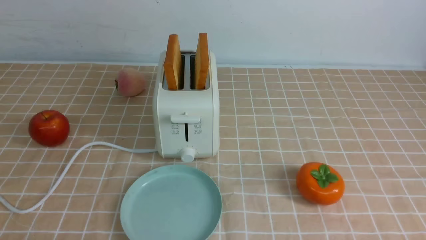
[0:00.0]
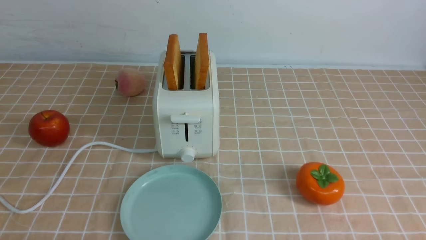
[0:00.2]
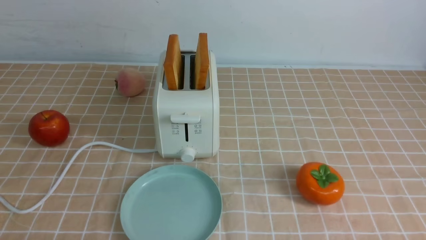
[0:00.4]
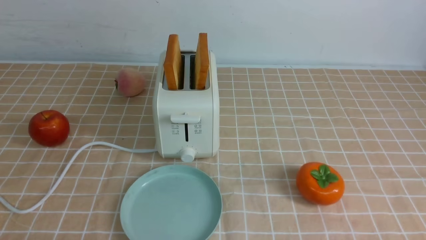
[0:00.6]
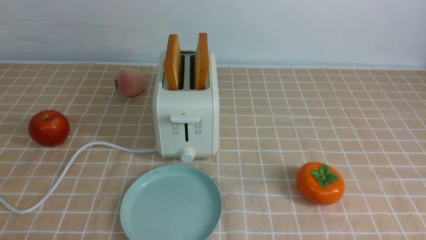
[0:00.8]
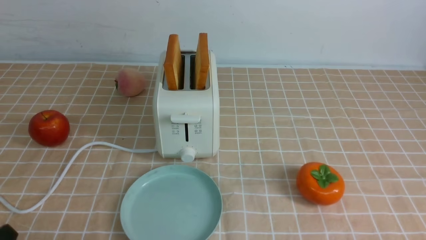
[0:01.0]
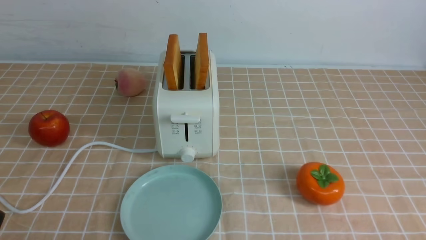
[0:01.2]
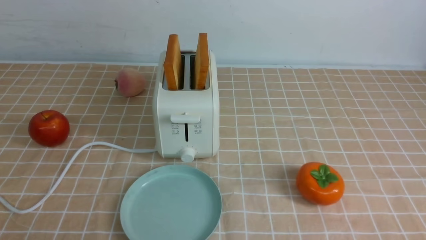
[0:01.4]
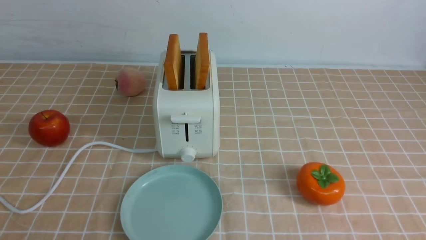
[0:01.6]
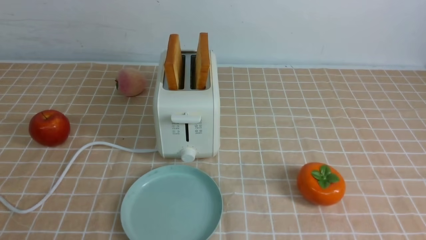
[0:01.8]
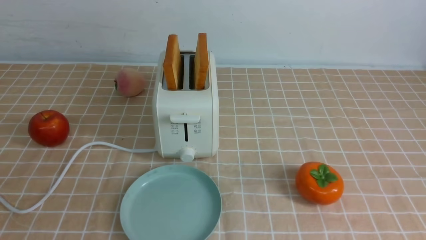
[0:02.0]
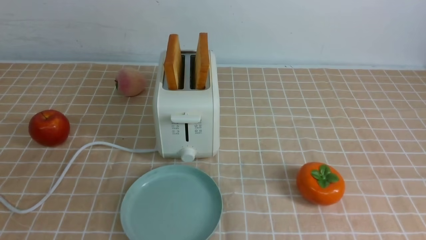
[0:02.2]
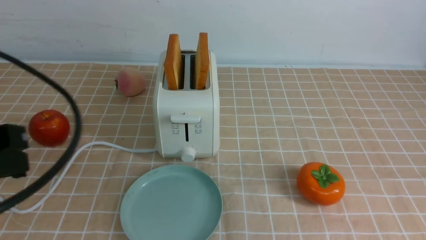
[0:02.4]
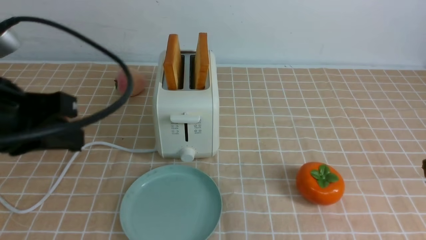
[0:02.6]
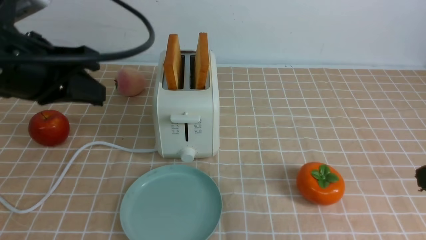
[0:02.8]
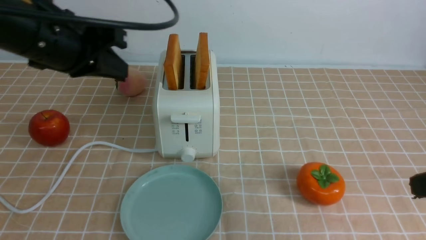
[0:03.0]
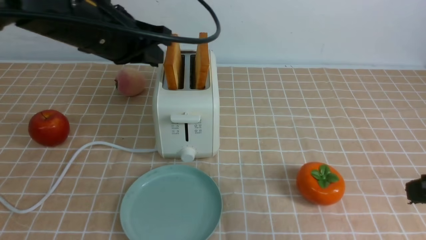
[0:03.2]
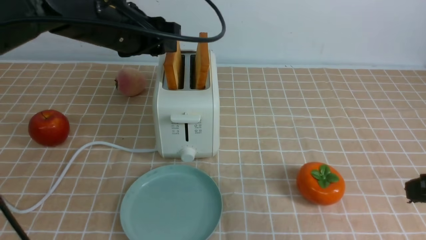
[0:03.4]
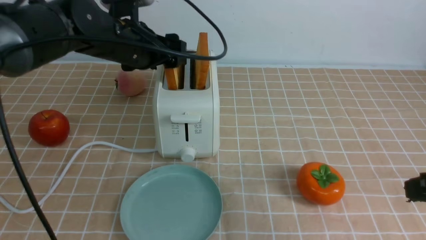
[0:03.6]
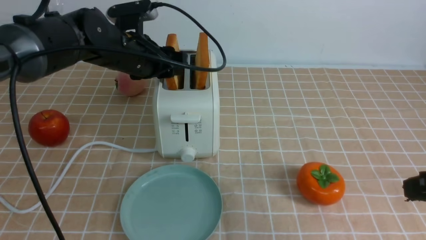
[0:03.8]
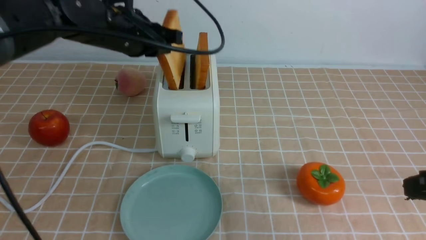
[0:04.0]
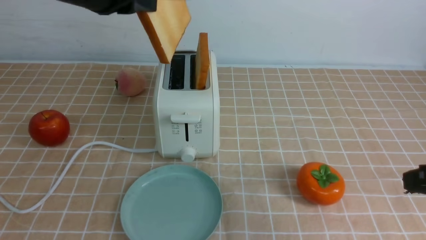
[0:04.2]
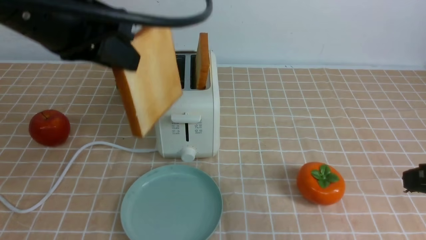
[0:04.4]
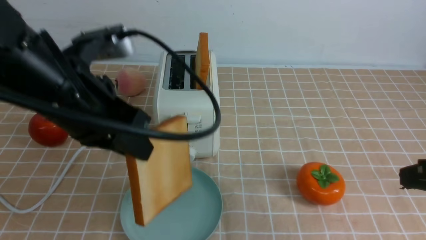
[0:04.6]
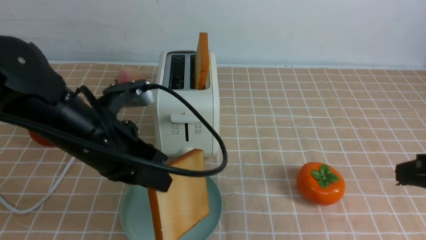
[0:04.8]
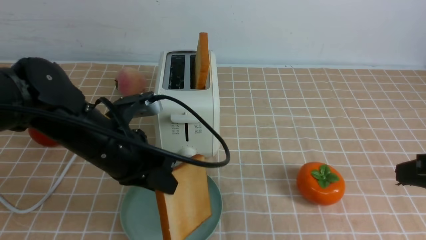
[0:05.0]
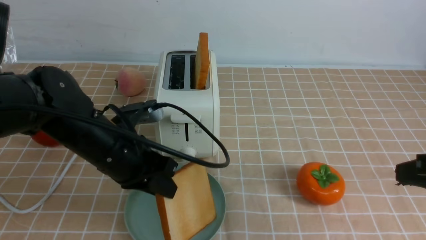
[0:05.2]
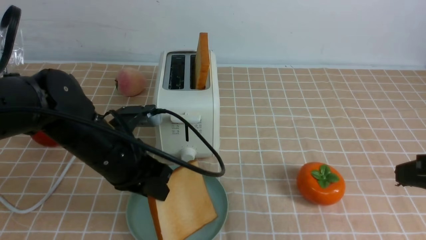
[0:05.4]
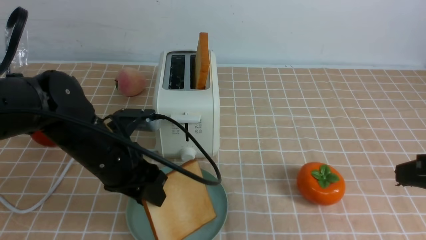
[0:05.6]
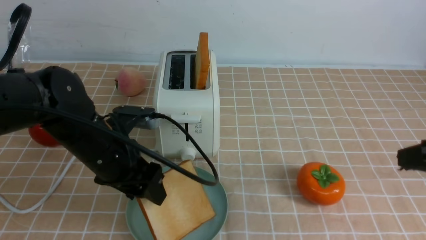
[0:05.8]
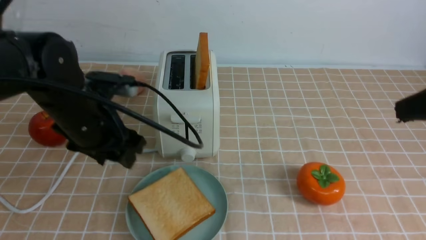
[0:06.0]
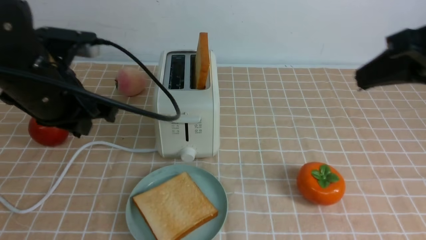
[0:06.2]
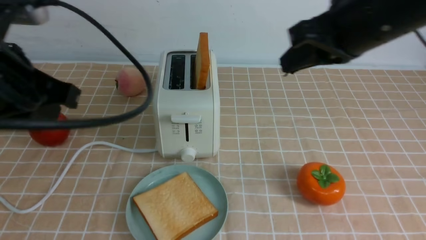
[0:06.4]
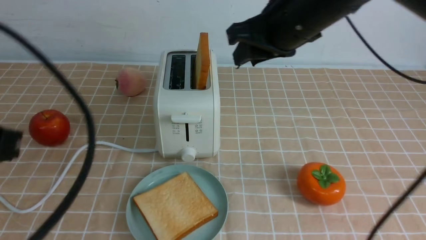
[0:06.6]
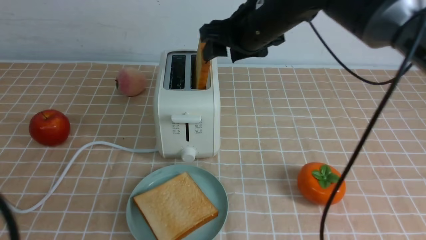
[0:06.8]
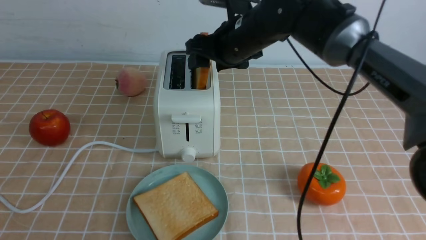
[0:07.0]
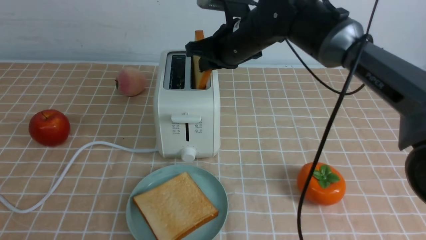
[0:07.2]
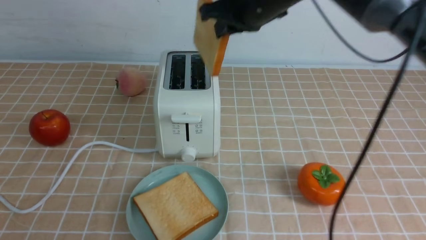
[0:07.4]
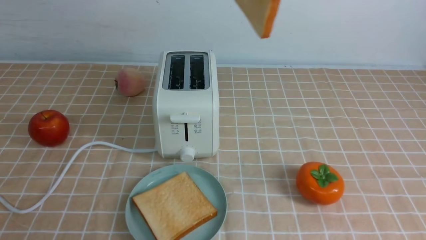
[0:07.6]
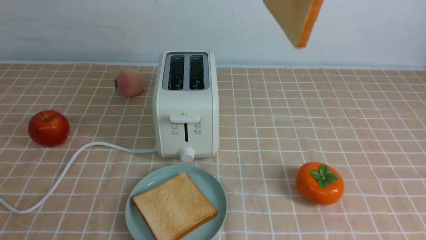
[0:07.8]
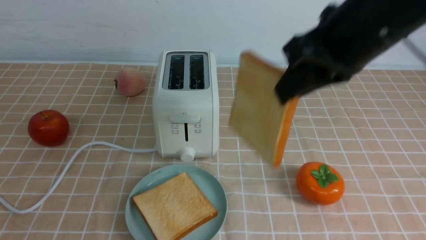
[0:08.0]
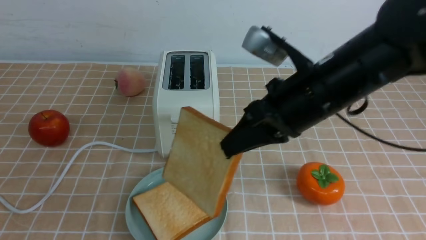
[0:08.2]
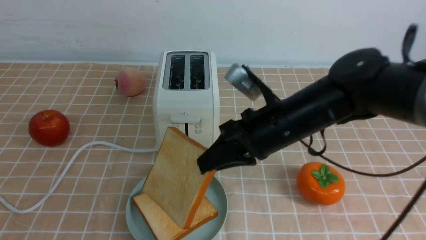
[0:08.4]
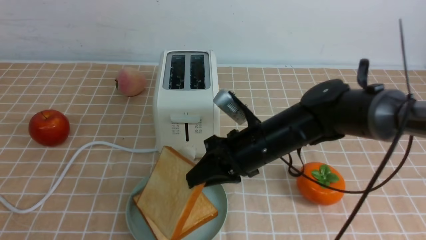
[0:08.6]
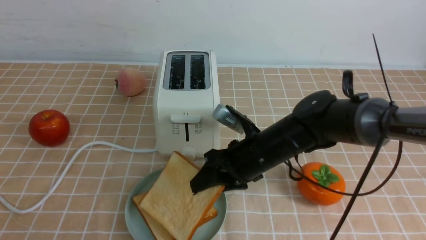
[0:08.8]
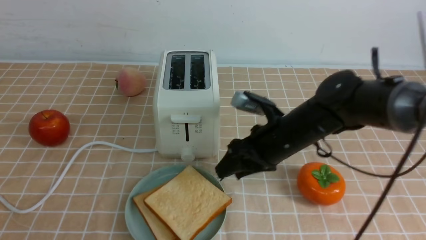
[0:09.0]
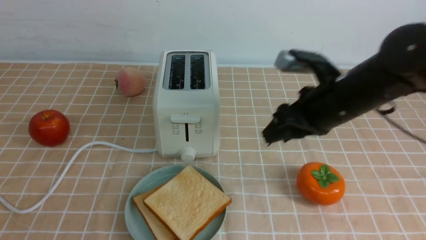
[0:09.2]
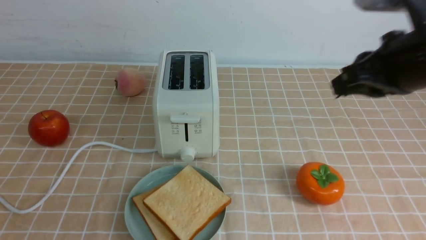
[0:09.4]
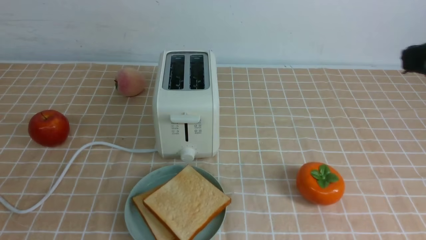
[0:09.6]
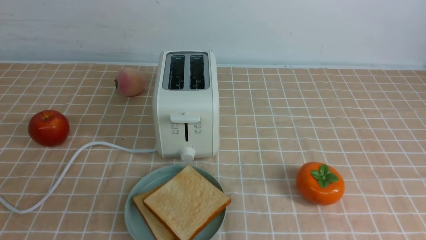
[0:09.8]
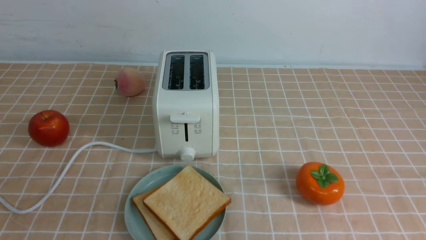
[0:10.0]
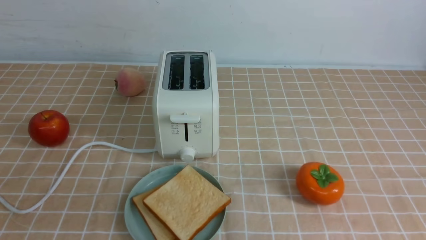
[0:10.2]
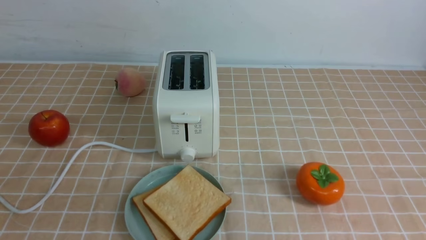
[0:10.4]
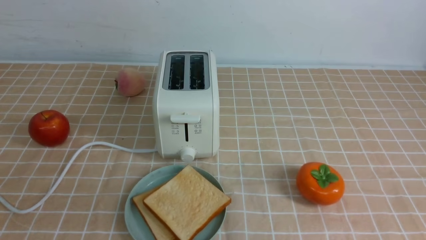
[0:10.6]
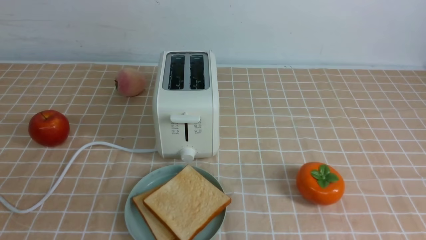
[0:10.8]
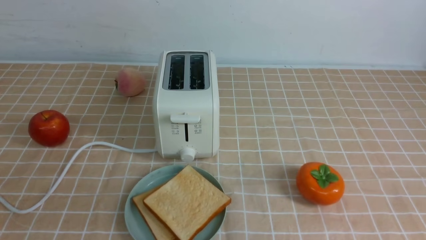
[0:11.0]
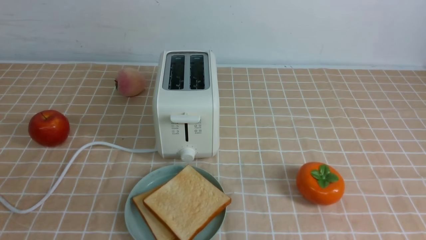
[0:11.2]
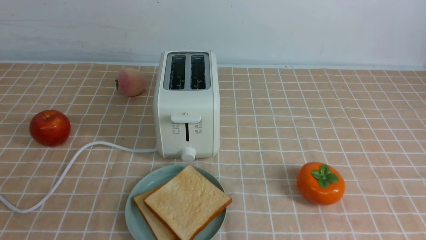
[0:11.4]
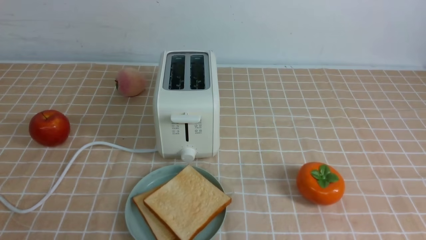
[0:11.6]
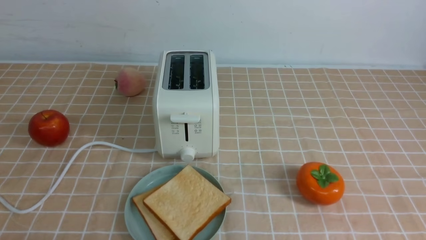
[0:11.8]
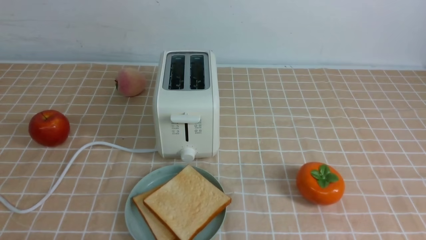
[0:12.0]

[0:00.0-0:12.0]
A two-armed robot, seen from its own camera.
Task of the whole recording: take toasted bread from bread machine on light coffee tablecloth place on plate.
Step, 0:00.0 to 0:04.0: use the left arm to take out a slice of bread.
Step, 0:04.2 to 0:05.8: use the left arm to put a slice of bread into the empty plate.
Step, 0:06.0 to 0:07.2: use the right arm to take out a slice of bread.
Step, 0:07.4 to 0:09.0: use the right arm to put a slice of bread into the plate.
0:01.6 to 0:03.0: The left gripper moves forward and upward, roughly 30 cm, and closes up; the right gripper heads upward and forward, covering about 15 cm, and closes its fingers.
0:03.0 to 0:04.4: The left gripper travels forward and back again, approximately 10 cm each way, and opens and closes again.
0:04.4 to 0:06.0: The left gripper goes approximately 10 cm downward, and opens, while the right gripper shifts some 10 cm upward.
0:06.0 to 0:07.6: The left gripper shifts some 25 cm backward, and closes its fingers. The right gripper heads forward, to the left and upward, covering approximately 20 cm, and opens, then closes again.
0:07.6 to 0:09.0: The right gripper shifts about 25 cm downward, and opens its fingers.
0:09.0 to 0:10.4: The right gripper heads backward and to the right, covering about 30 cm, and closes its fingers.

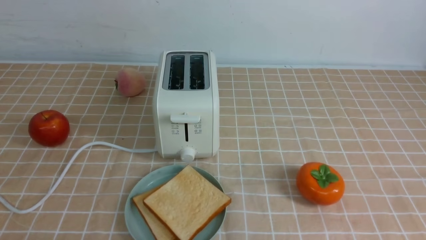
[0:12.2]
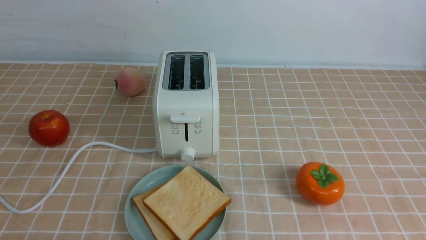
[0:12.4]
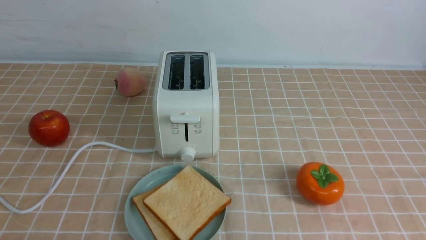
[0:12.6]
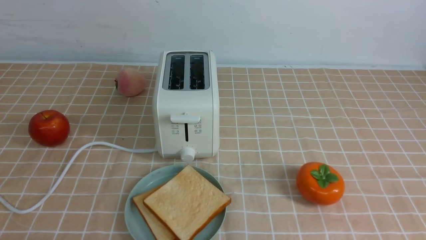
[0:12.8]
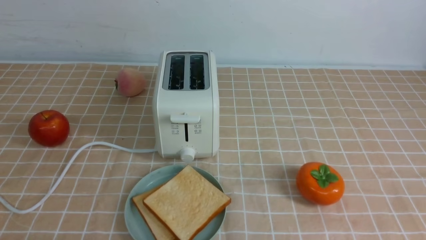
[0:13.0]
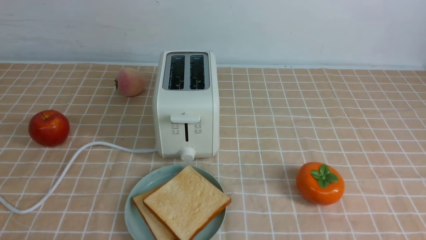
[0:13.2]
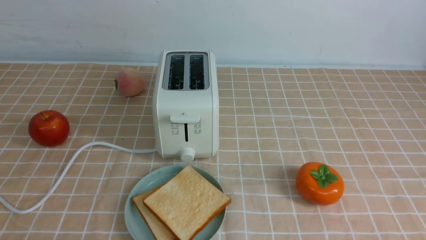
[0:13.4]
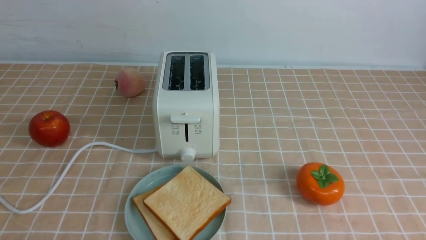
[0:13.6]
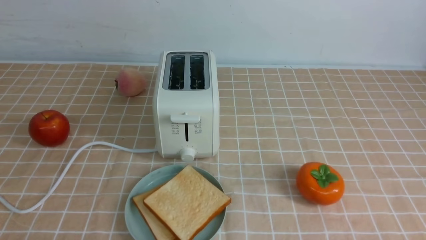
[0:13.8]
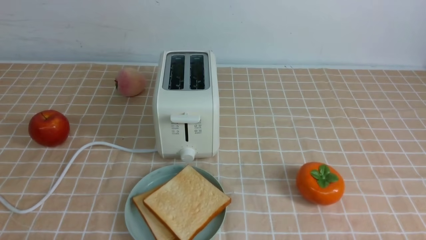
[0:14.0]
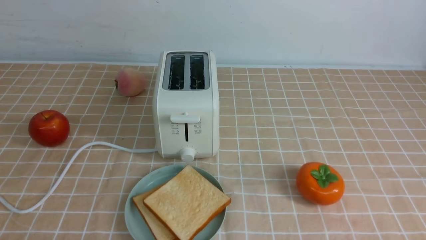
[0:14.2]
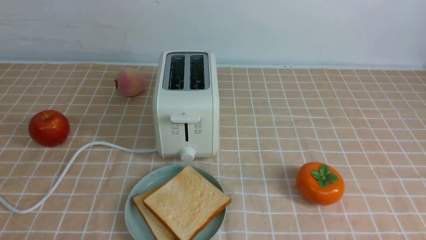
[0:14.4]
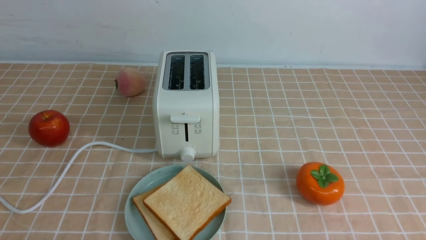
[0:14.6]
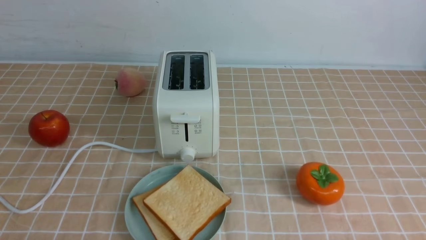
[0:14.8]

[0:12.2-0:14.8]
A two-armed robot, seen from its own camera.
Task of the whole recording: take toasted bread from bread machine on light coffee tablecloth place on plate.
0:13.4 to 0:14.8: The two grippers keep their place.
